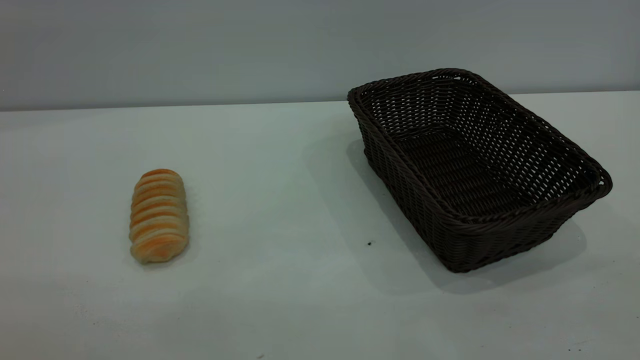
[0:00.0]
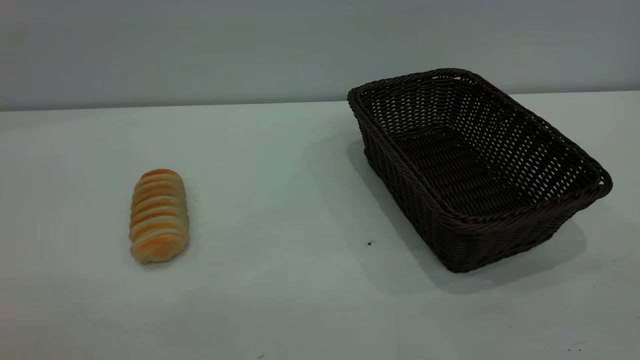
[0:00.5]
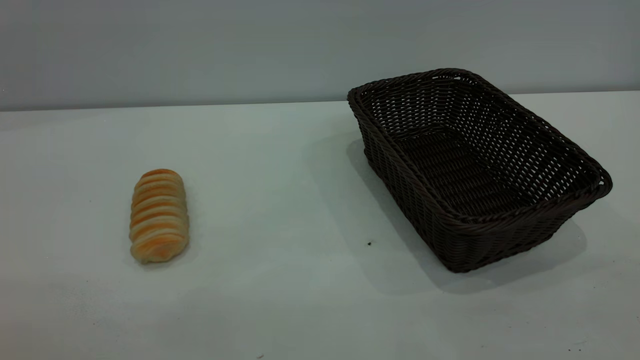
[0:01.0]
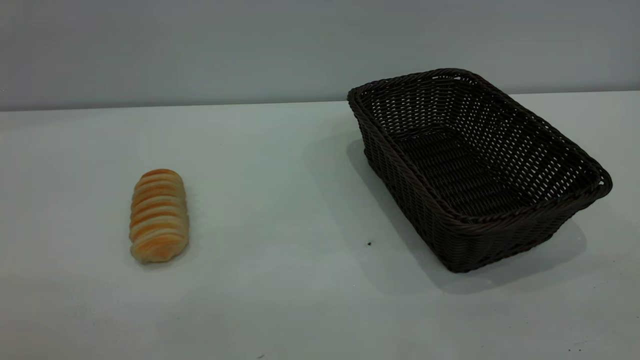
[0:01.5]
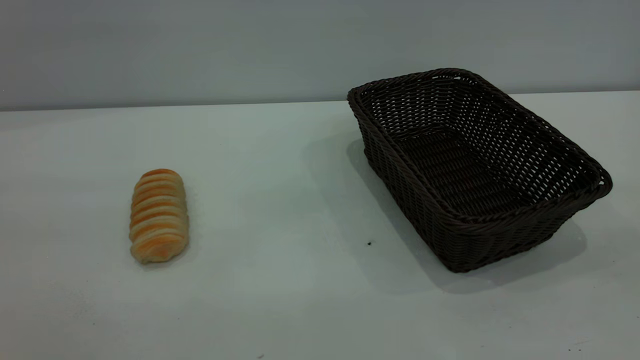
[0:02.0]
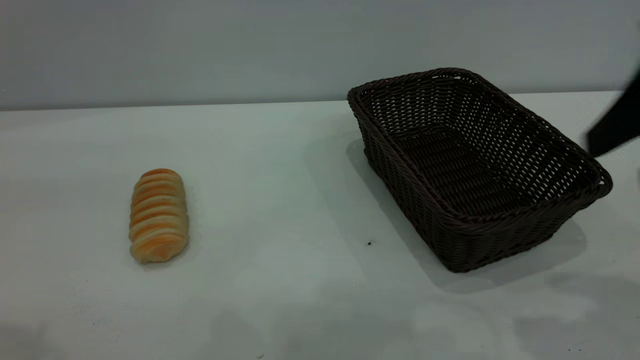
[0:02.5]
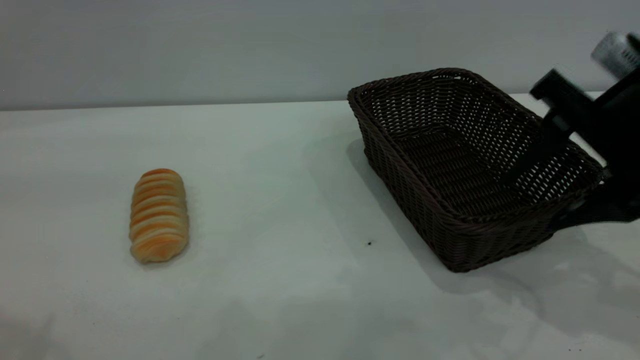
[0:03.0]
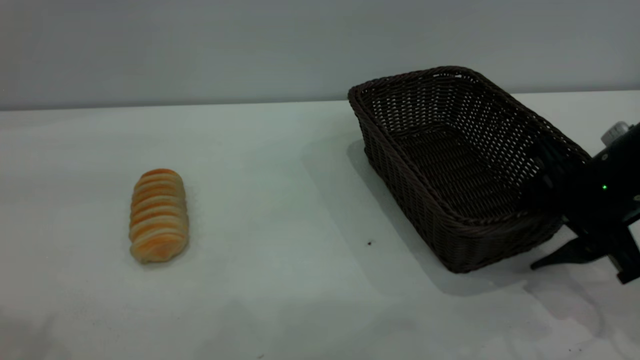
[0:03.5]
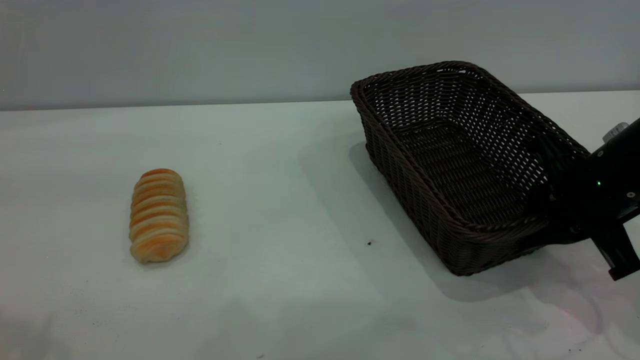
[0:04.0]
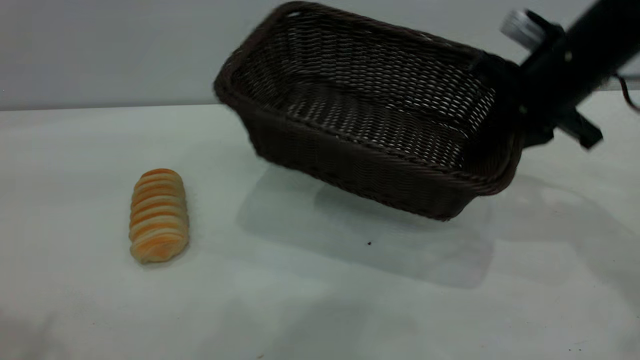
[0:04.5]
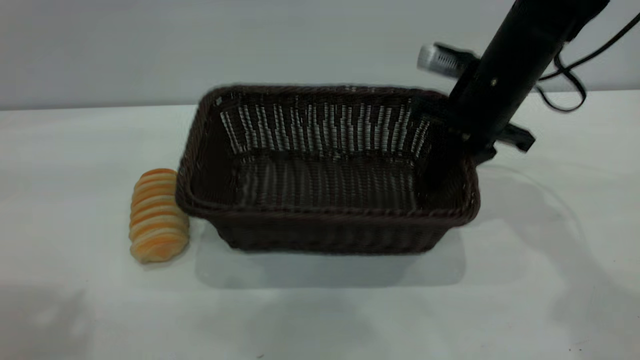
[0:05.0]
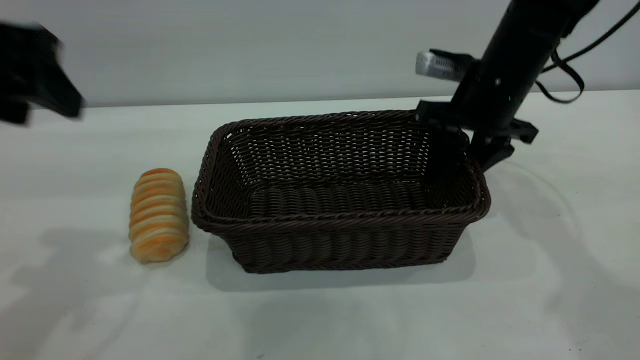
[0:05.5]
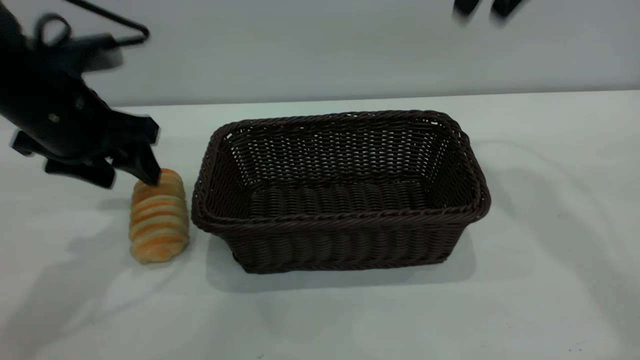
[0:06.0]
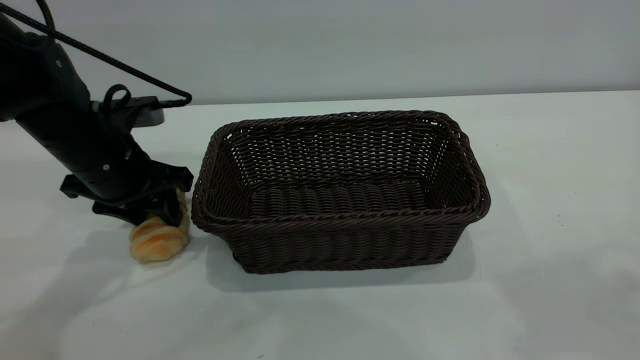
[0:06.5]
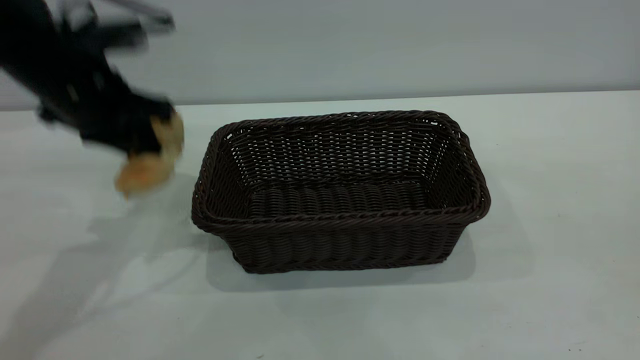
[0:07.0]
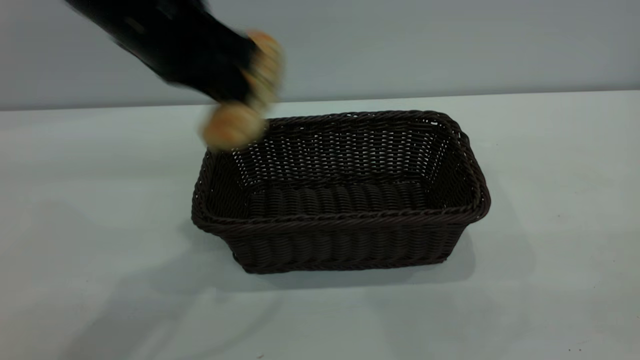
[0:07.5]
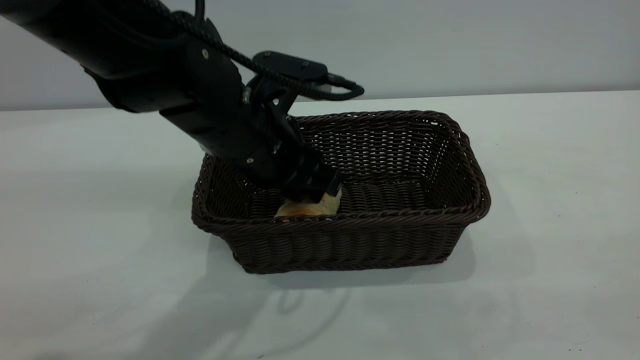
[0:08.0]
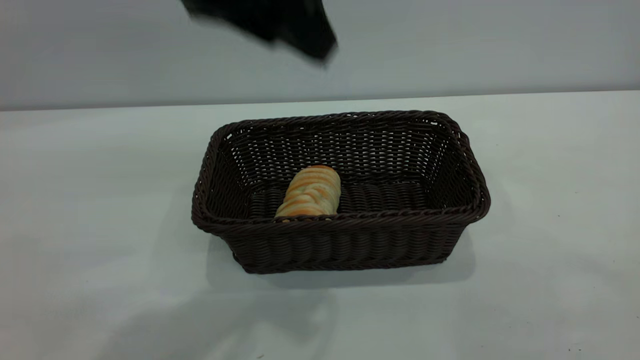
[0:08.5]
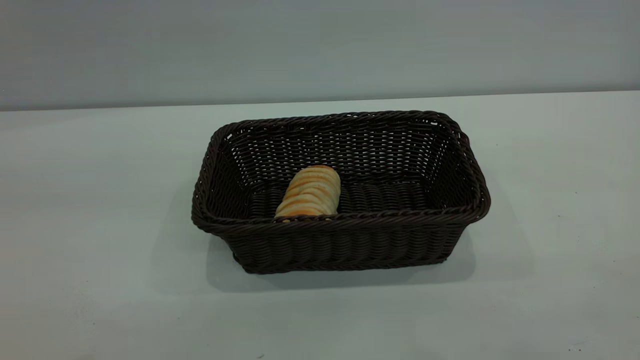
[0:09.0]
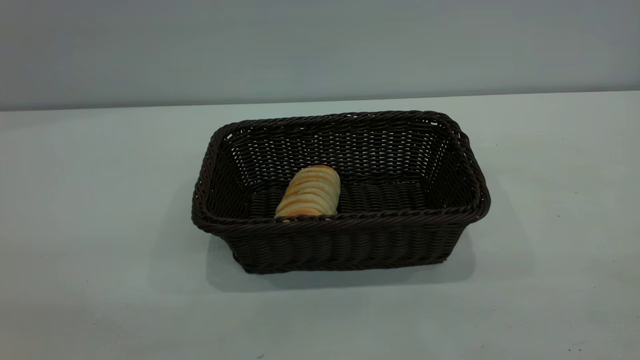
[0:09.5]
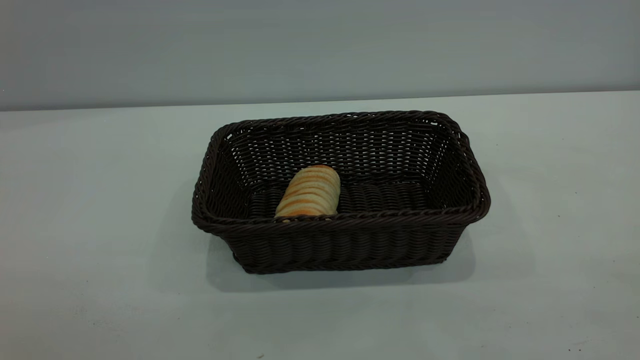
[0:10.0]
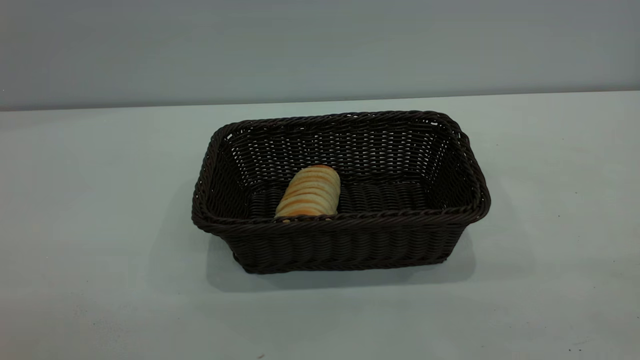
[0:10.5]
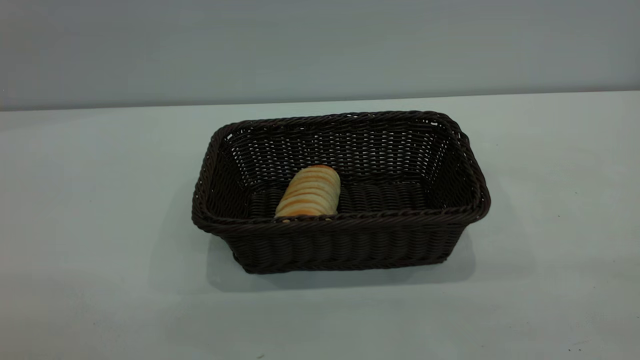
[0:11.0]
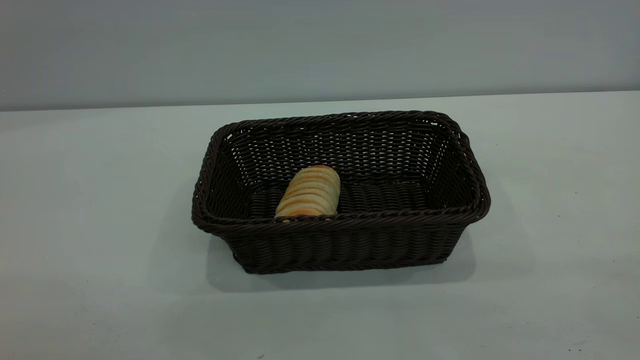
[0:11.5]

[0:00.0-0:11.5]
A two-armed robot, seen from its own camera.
Task of the whole recording: One hand grasps the black basket and places it in the middle of the table, while the other hand picks up the long bread and puts it into the black basket.
Step, 0:00.0 to 0:05.5: Move the basket to the center of view.
Step, 0:07.0 to 0:08.0: place the bread into the basket.
0:02.0 to 0:04.0: The right gripper heads downward and forward, covering some 30 cm, and closes up.
0:04.0 to 0:06.0: The left gripper travels downward and forward by approximately 30 cm; the right gripper swings up and down, some 25 cm each way, with 2 reversals, and opens its fingers.
0:06.0 to 0:07.5: The left gripper shifts about 15 cm to the right and upward, and closes, while the right gripper goes approximately 40 cm backward.
0:07.5 to 0:09.5: The left gripper swings up and down, some 30 cm each way, with 2 reversals, and opens.
